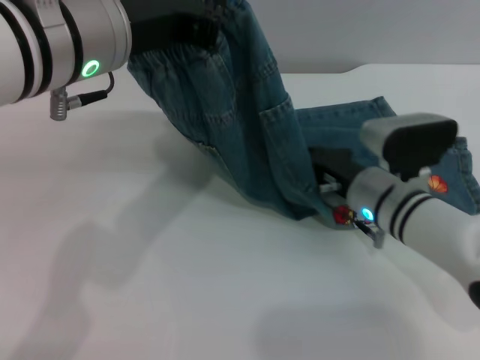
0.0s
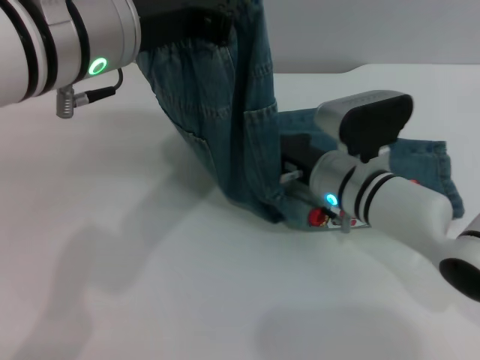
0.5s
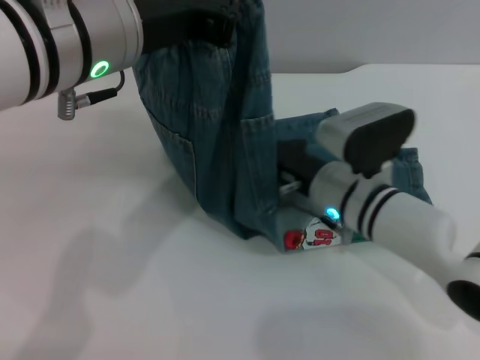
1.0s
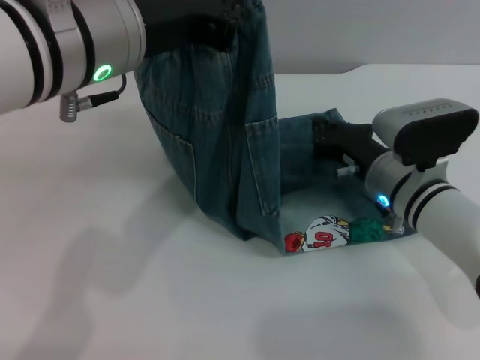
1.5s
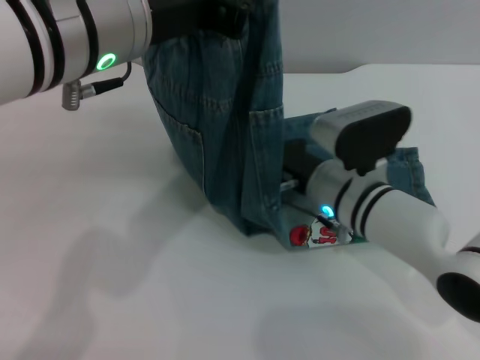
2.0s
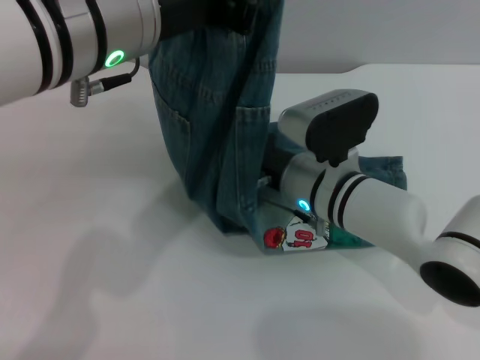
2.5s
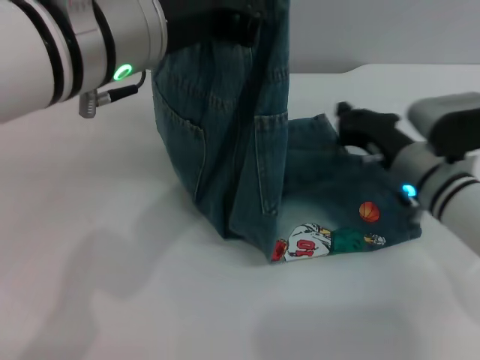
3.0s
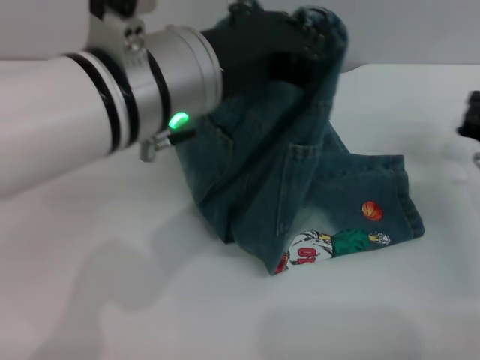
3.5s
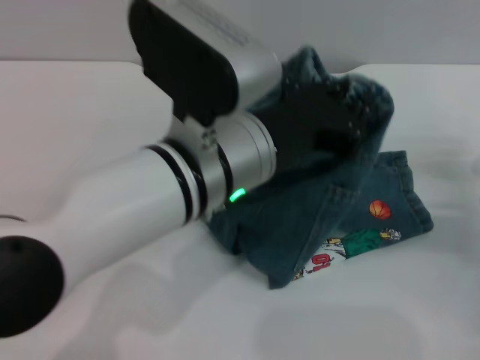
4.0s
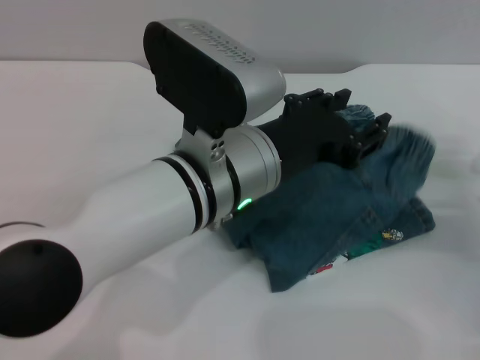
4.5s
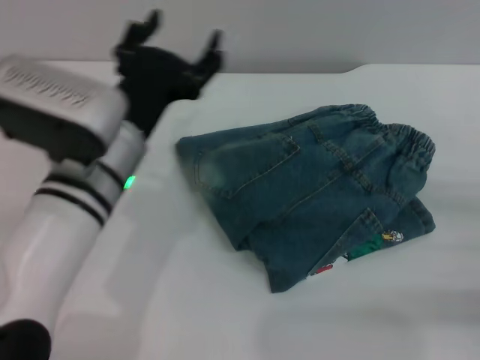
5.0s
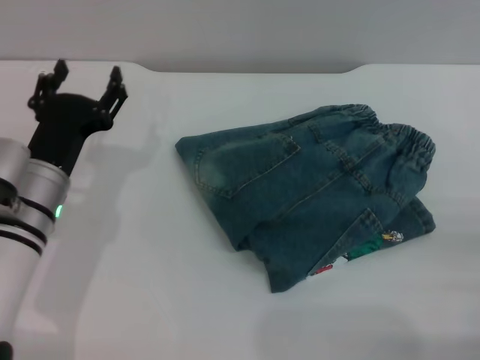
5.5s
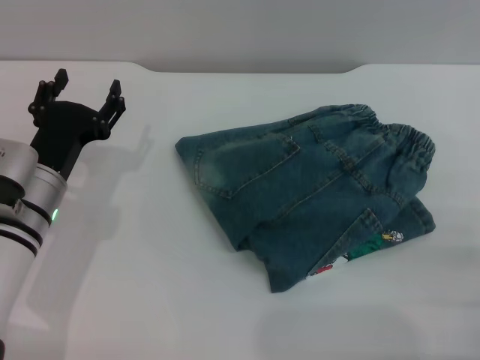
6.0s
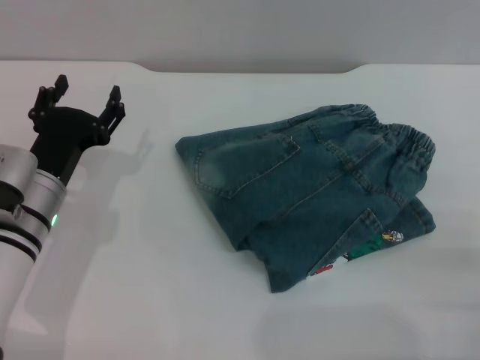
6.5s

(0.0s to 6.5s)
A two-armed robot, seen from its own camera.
Step, 0.0s - 4.5s: Fold the pants from left to right with the left gripper.
0.0s - 2.0s: The right gripper goes left and right, some 5 cm each way, reversing 2 times.
2.0s - 4.5s: The right gripper goes roughly 20 cm to the right, while the left gripper goes roughly 15 cm downward and to the right, and opens up.
4.5s - 6.5s: The left gripper heads to the left and downward, covering roughly 20 cm, and opens up. Meanwhile the right gripper shifts roughly 15 cm backward, and opens.

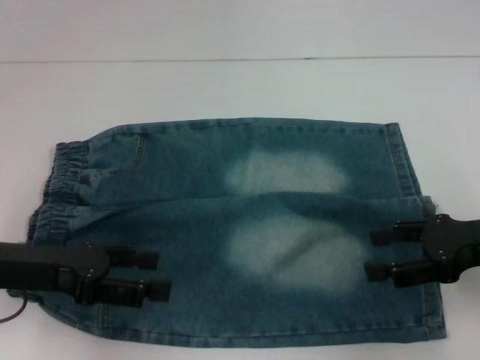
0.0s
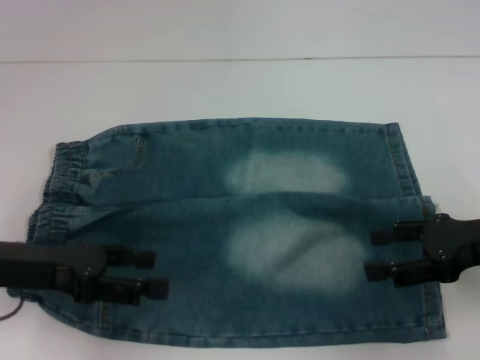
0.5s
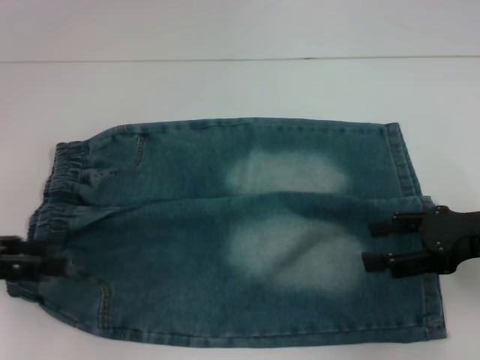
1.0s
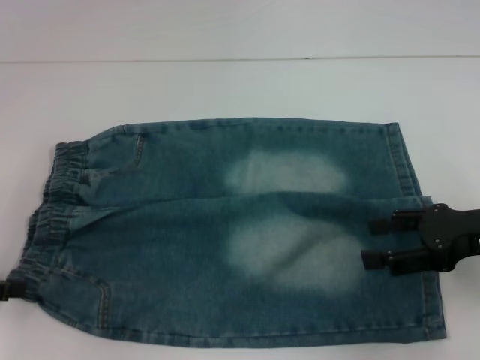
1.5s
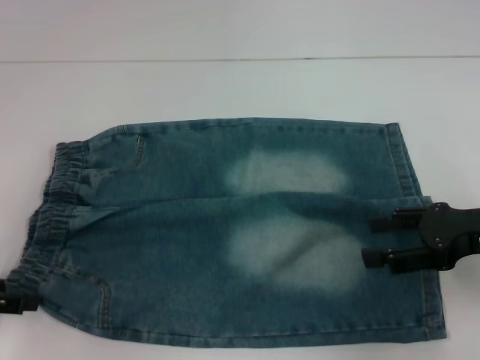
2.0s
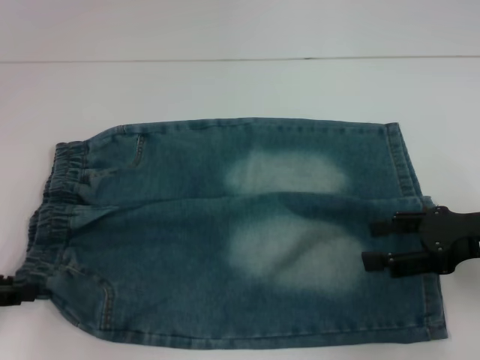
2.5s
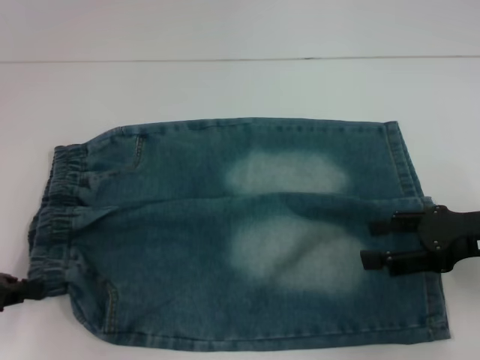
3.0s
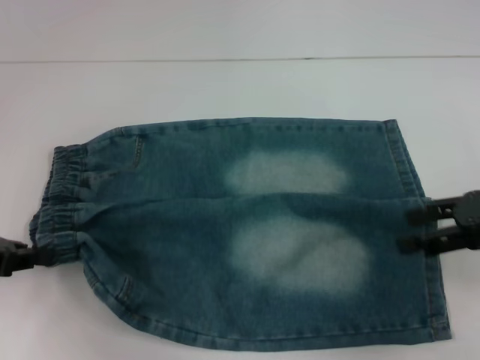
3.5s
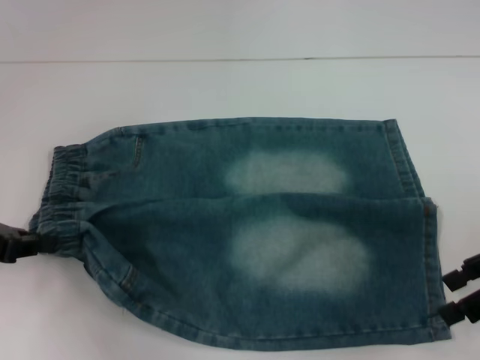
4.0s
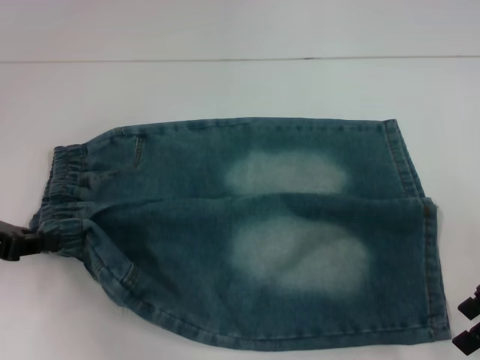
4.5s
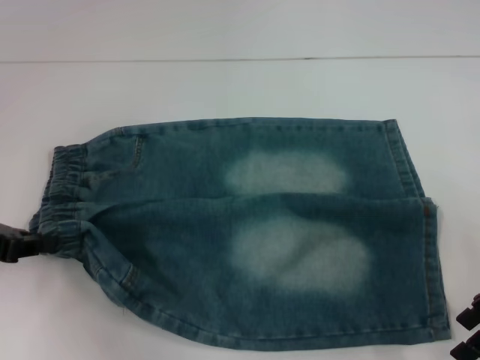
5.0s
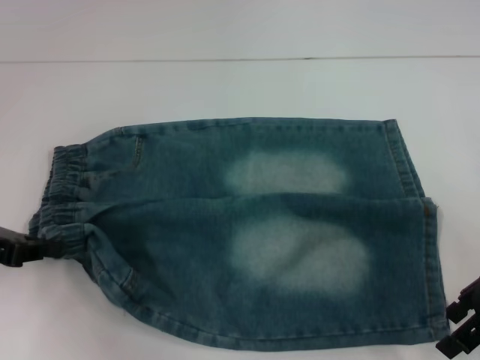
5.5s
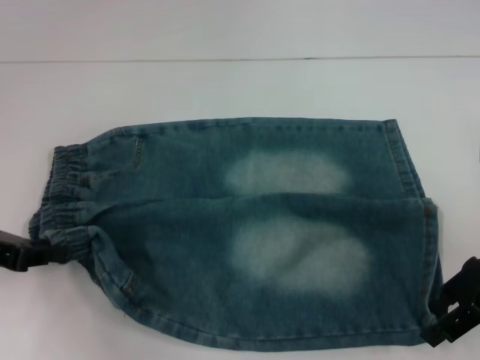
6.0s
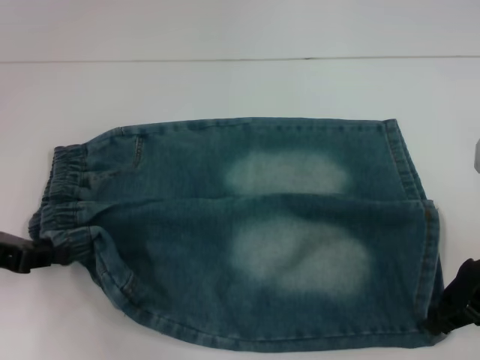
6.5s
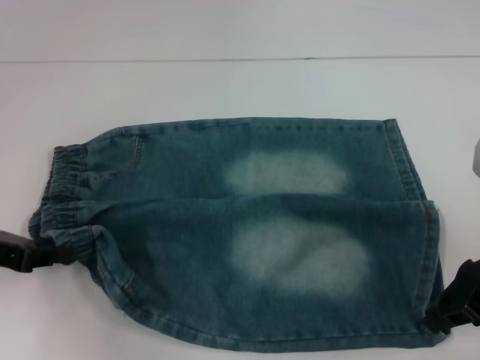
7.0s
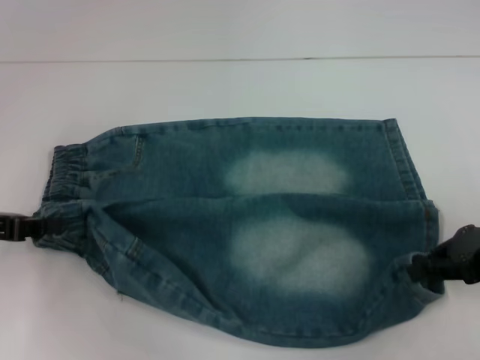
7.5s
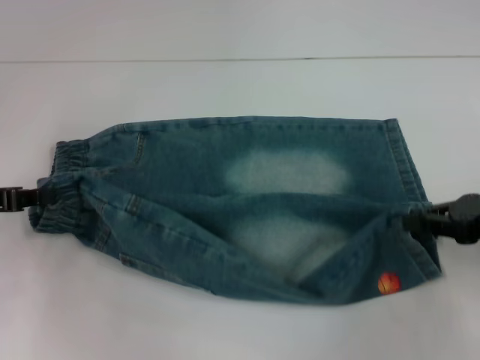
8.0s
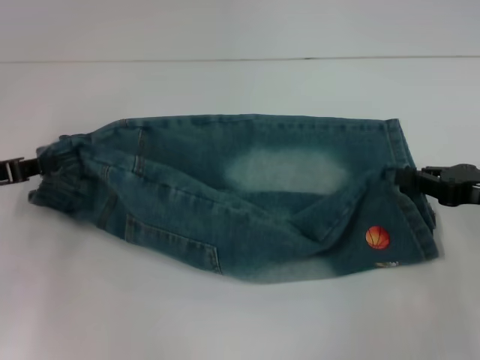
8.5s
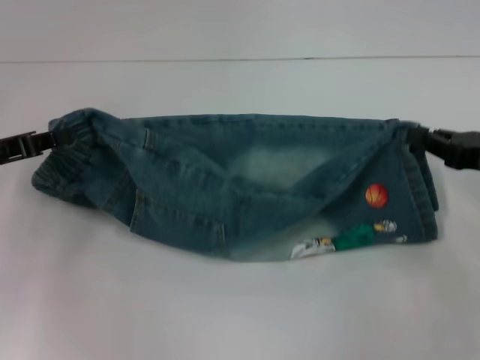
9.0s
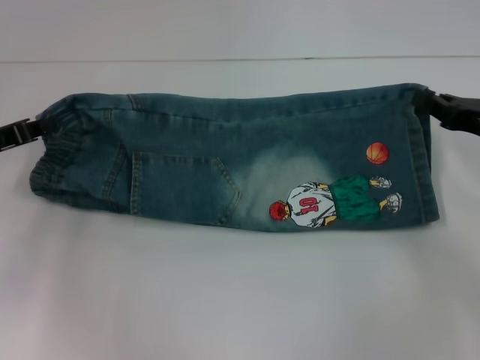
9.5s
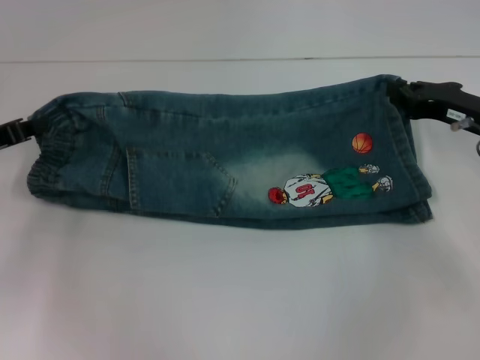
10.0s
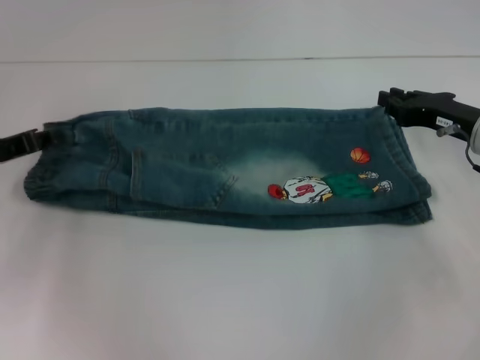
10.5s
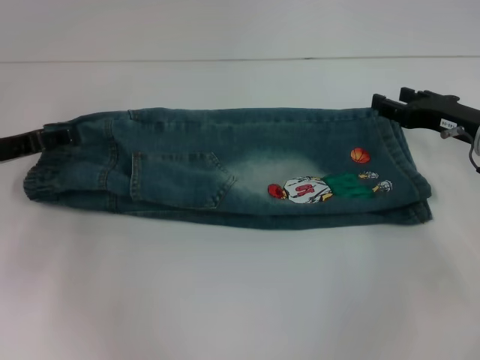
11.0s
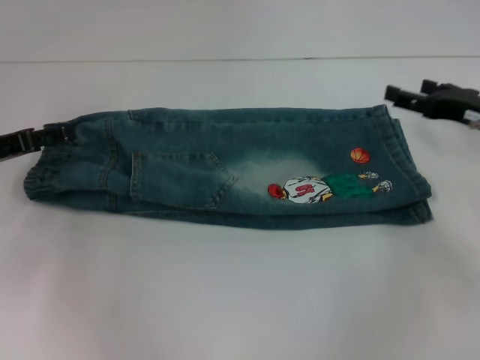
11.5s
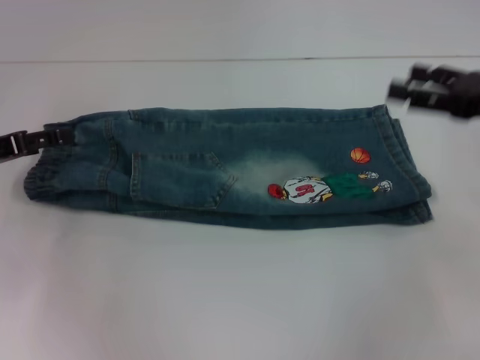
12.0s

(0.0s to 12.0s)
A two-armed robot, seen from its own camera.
Step, 0.0s - 2.5s: Hold the lower left waistband with your left hand.
Step, 3.0s - 6.0s: Grab the lower right pant leg with your right hand.
Step, 6.5s - 10.0s: Fold upward with your right hand.
0.0s - 2.0s: The left gripper travels to the left by some 10 cm.
2.0s - 4.0s: The left gripper changes place by about 5 cm, and closes up.
4.0s - 6.0s: There are only small adjustments of the grippers.
6.0s - 8.0s: The right gripper travels to the right by about 5 cm, and closes.
8.0s - 10.0s: The right gripper goes about 10 cm forward.
10.0s - 12.0s: The left gripper opens up. Meanwhile the right gripper shifts about 5 cm upward, and opens up.

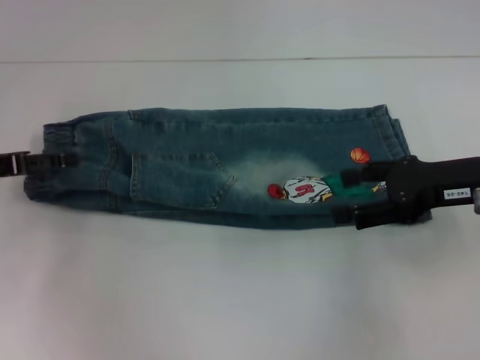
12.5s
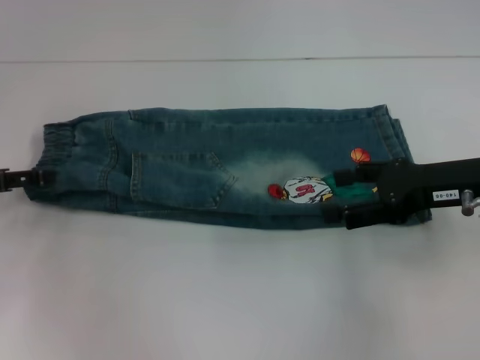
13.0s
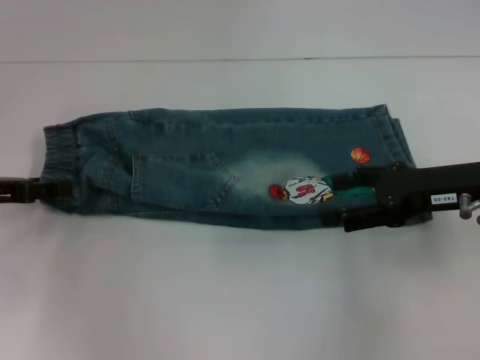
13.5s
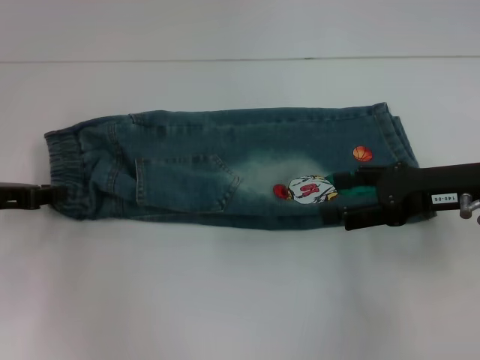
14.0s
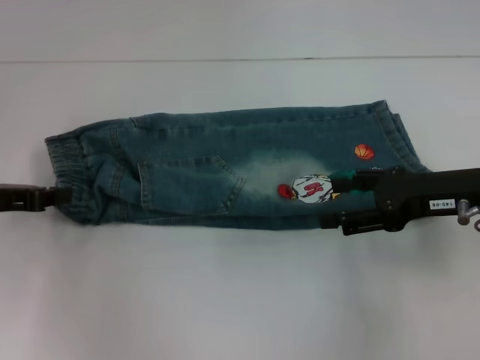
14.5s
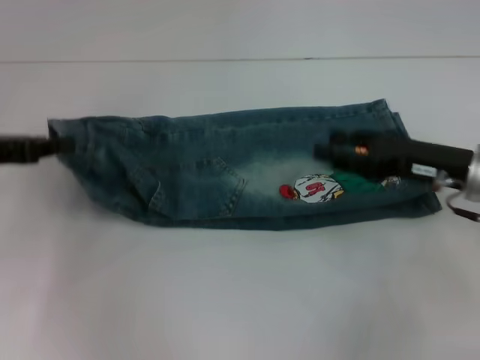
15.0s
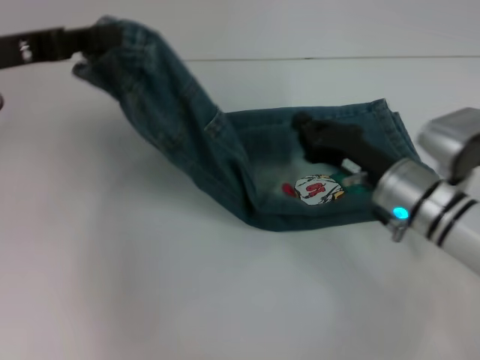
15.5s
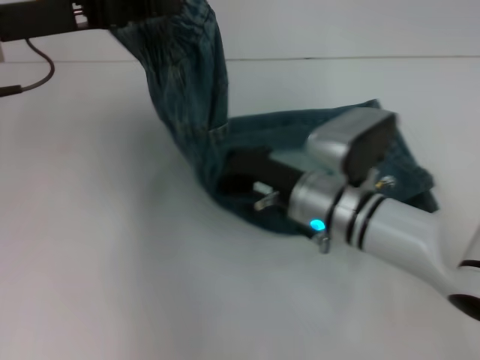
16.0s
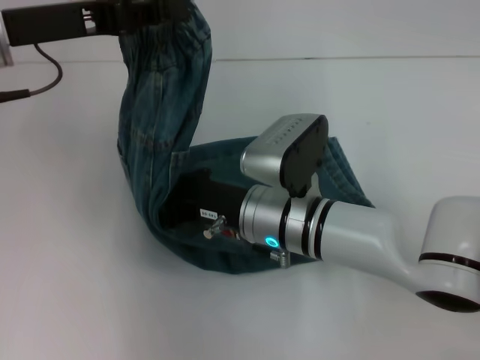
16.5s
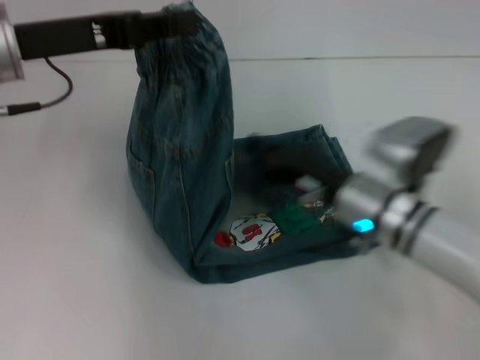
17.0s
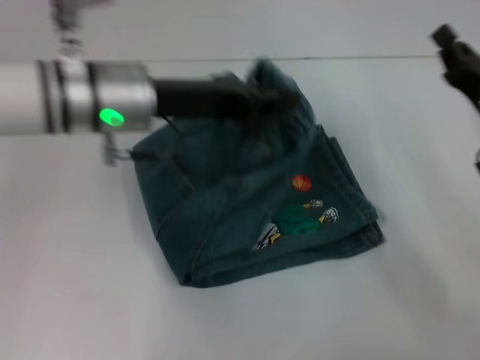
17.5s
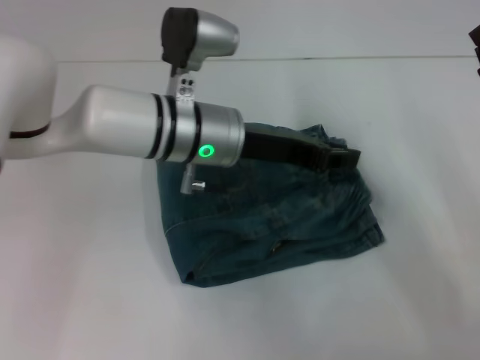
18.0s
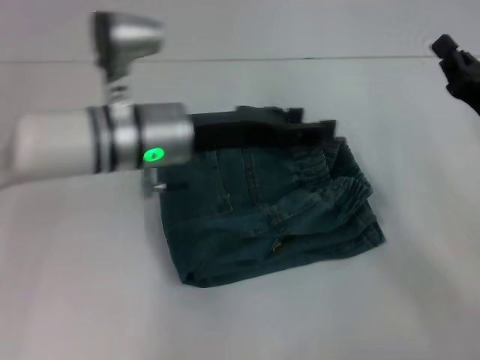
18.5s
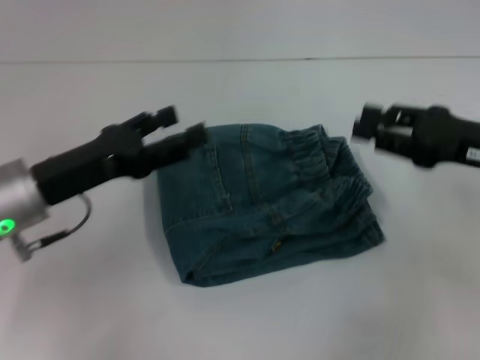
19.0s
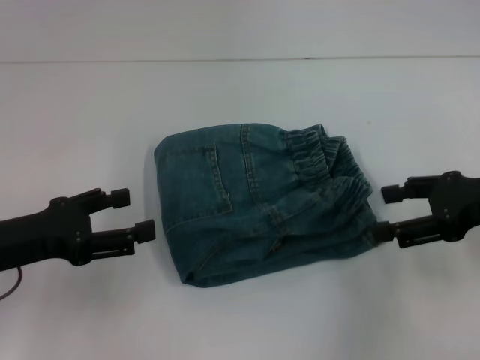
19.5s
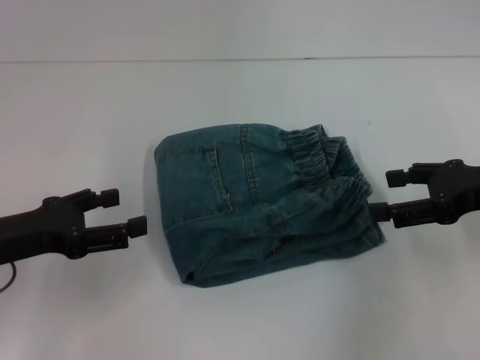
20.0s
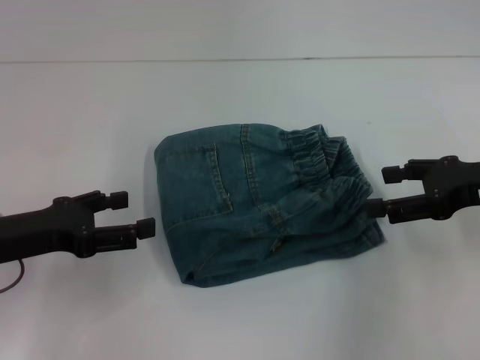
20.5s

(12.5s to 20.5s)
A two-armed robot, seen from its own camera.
Step, 14.5s - 16.5s: Press the middle of the pants with your right hand.
Step, 17.0s - 18.0s: Fold to the right with your left hand.
12.5s - 14.5s: The left gripper closes up.
14.5s - 16.5s: The left gripper goes roughly 15 cm upward, to the right and forward, while the right gripper travels to the left by some 20 cm, and closes.
16.5s - 18.5s: The left gripper goes roughly 15 cm to the right and downward, and opens up. Meanwhile the right gripper goes some 25 cm to the right.
18.5s - 20.5s: The left gripper moves to the left and backward, about 20 cm, and opens up; the right gripper travels upward by roughly 5 cm, and opens up.
